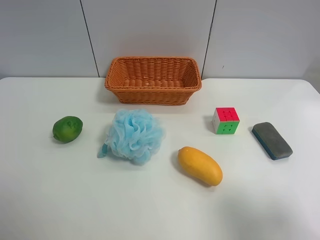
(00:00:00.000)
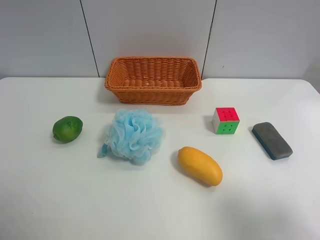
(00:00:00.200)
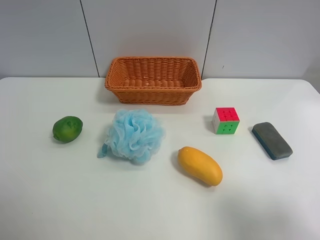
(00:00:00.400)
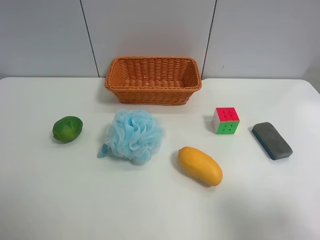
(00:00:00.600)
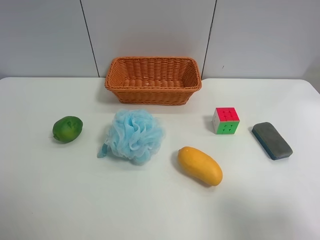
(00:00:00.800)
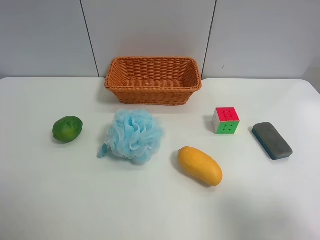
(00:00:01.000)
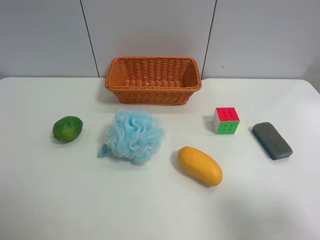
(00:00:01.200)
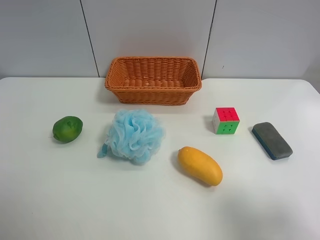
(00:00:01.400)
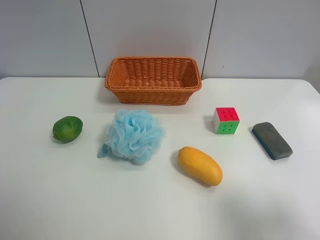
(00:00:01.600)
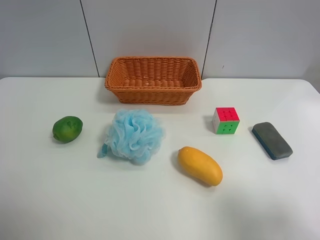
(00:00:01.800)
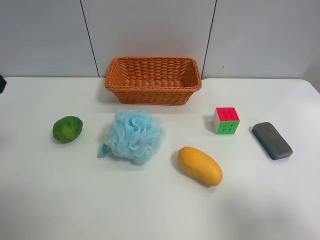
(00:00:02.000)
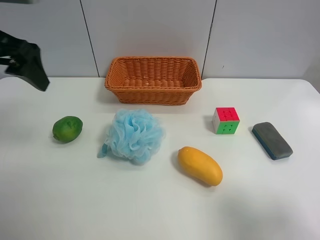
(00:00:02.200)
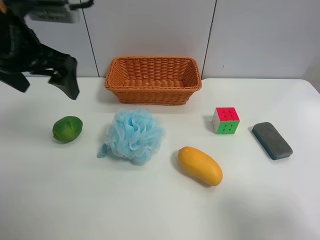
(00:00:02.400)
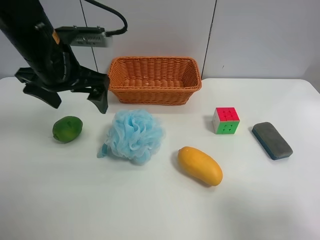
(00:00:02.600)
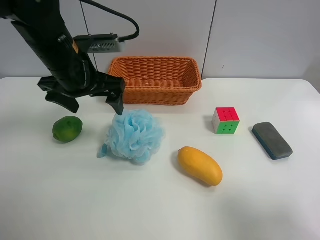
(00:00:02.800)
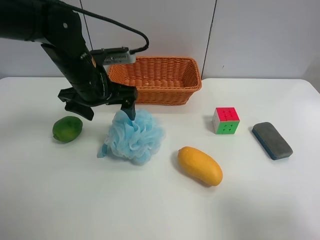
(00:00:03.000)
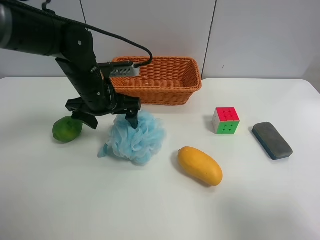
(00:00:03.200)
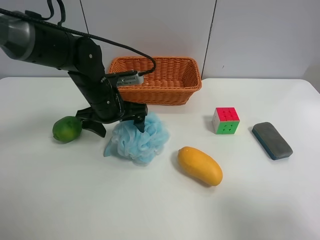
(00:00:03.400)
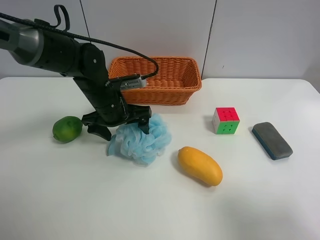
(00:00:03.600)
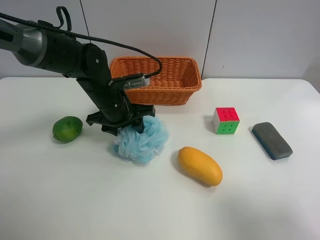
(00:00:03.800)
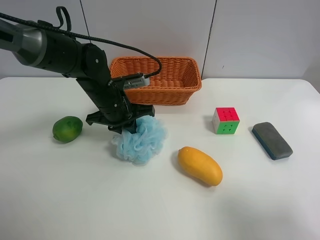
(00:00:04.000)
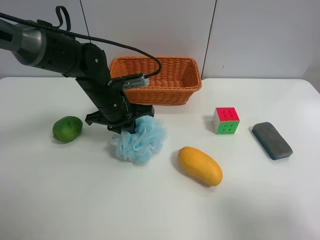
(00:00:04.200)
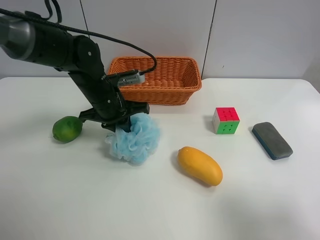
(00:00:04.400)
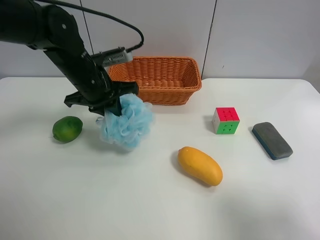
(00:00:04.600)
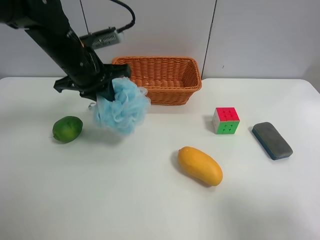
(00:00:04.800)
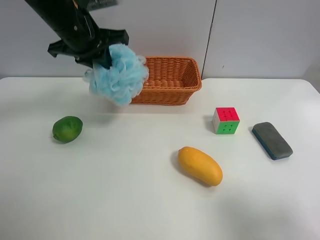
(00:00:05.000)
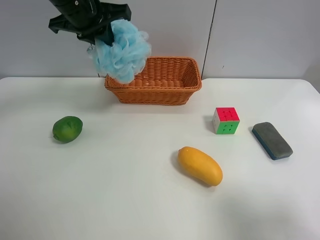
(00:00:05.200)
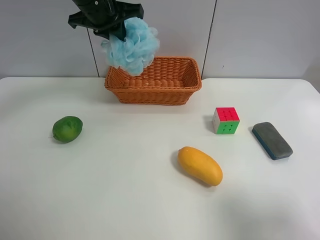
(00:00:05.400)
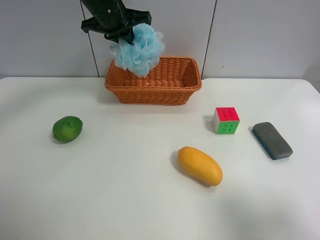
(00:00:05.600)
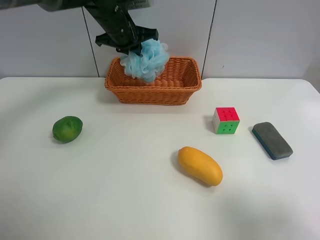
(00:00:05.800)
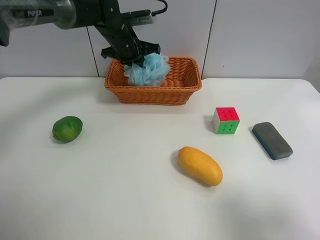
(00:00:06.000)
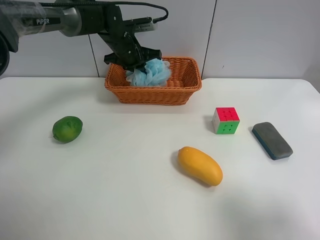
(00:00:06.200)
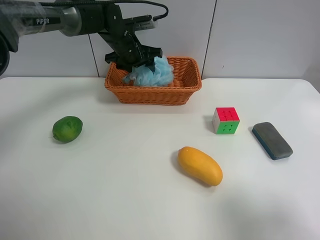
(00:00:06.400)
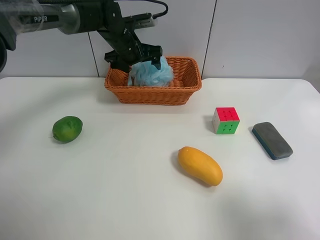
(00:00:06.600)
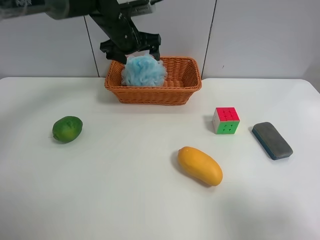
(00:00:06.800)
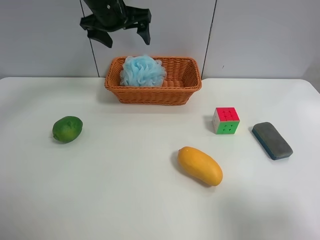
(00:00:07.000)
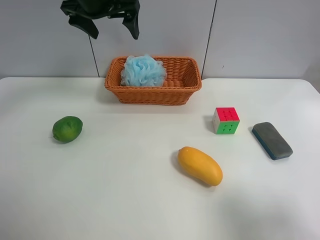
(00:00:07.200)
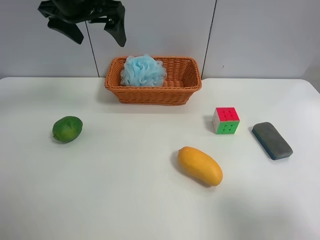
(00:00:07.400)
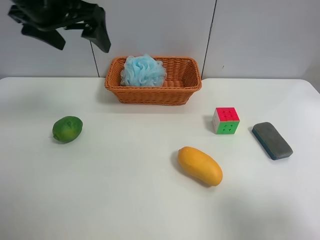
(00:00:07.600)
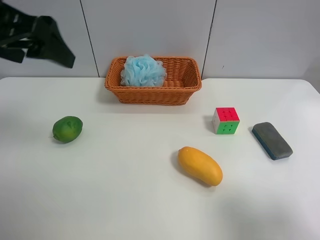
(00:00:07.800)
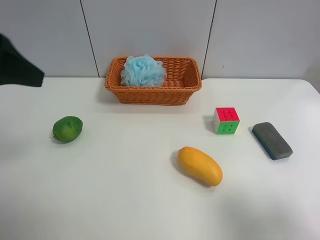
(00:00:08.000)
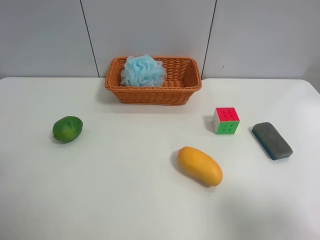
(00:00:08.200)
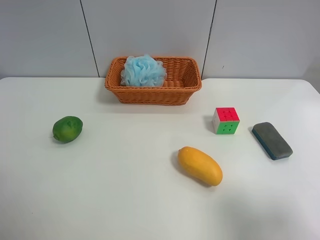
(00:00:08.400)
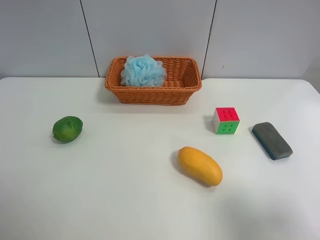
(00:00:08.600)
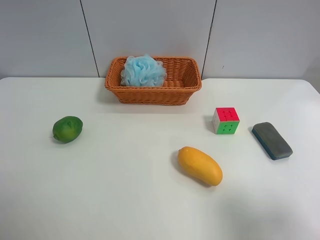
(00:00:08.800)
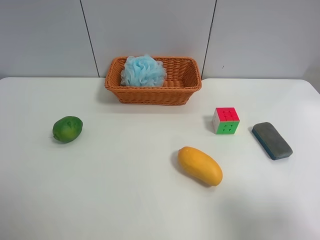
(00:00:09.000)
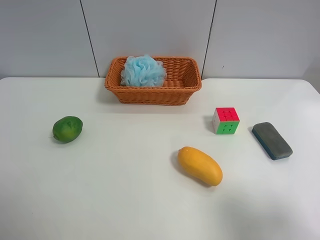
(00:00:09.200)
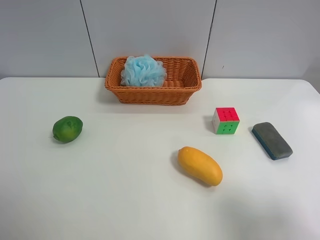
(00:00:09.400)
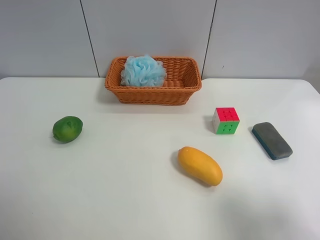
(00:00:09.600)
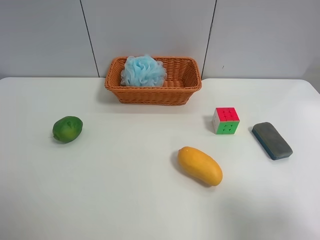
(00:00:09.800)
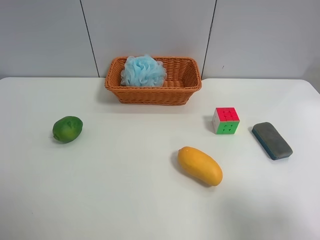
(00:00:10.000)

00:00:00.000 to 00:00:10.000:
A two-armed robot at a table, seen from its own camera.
Task of the whole recording: use the left gripper to grab items from the table and place them in the basket.
Step, 00:00:00.000 to 00:00:04.000: Grasp the Shower puff with the left gripper.
Step, 00:00:04.200 to 00:00:06.600: Place the Shower puff into the basket with the left gripper.
00:00:01.400 to 00:00:02.800: The left gripper goes about 30 cm forward and to the right.
00:00:02.800 to 00:00:04.200: The left gripper heads downward, covering some 10 cm, and closes up.
00:00:04.200 to 00:00:05.800: The left gripper travels forward and upward by approximately 15 cm.
00:00:05.800 to 00:00:07.200: The left gripper moves upward and backward, roughly 15 cm, and opens up.
00:00:07.200 to 00:00:08.600: The left gripper heads backward and to the left, covering roughly 40 cm.
